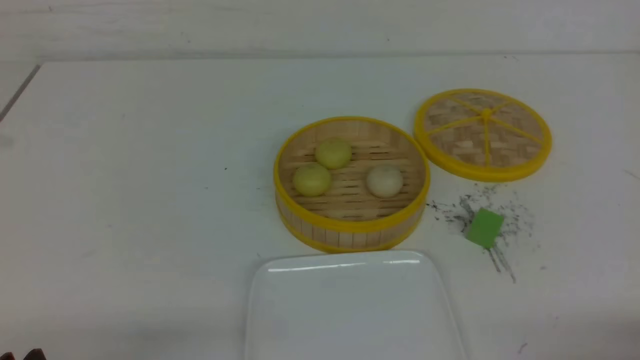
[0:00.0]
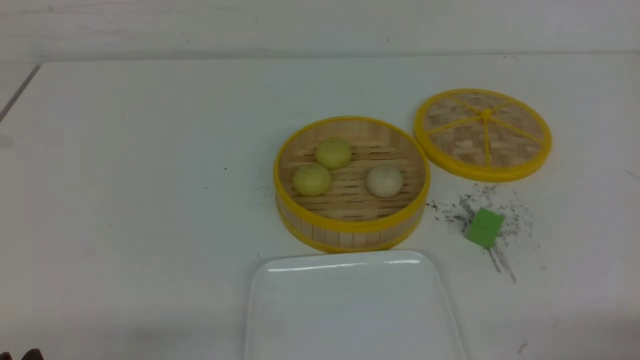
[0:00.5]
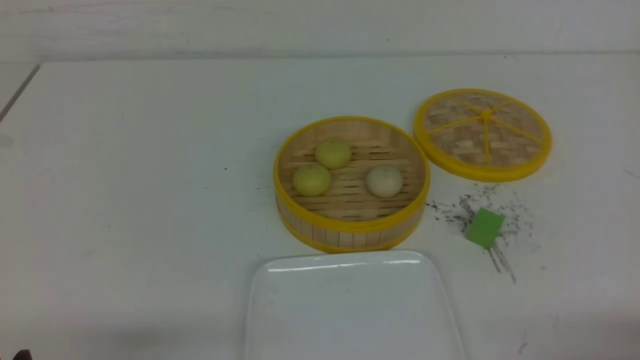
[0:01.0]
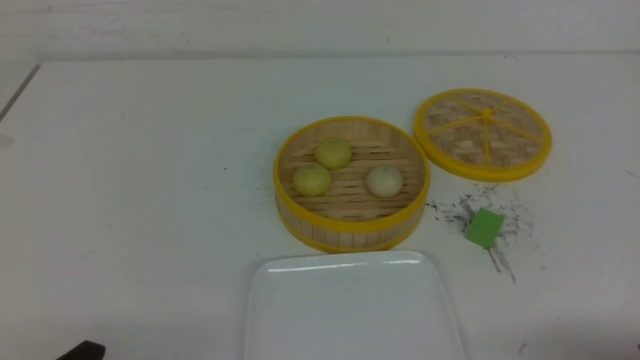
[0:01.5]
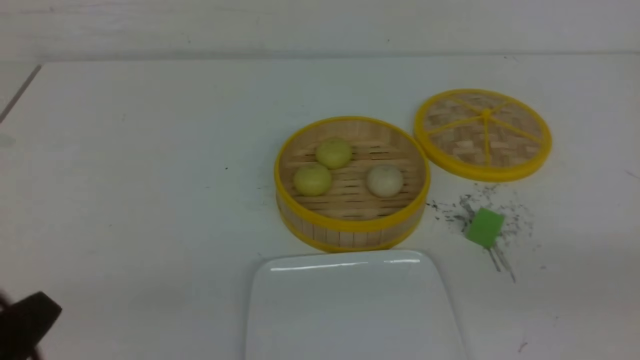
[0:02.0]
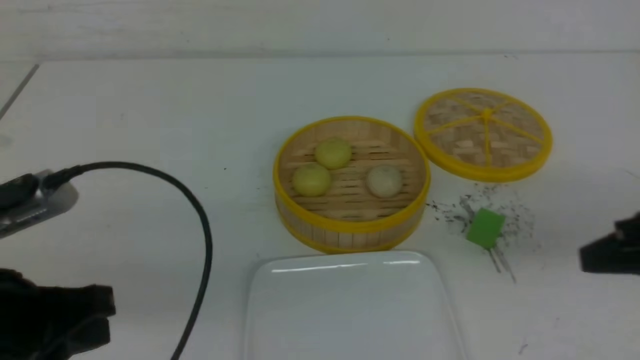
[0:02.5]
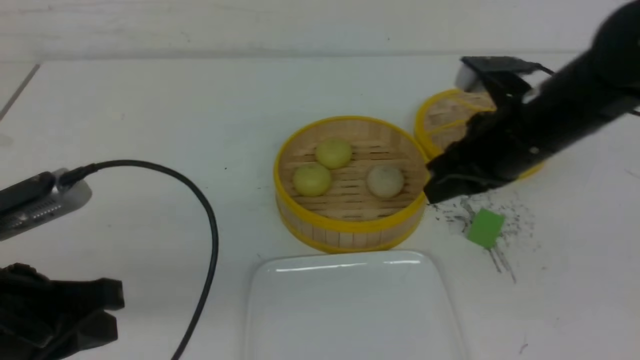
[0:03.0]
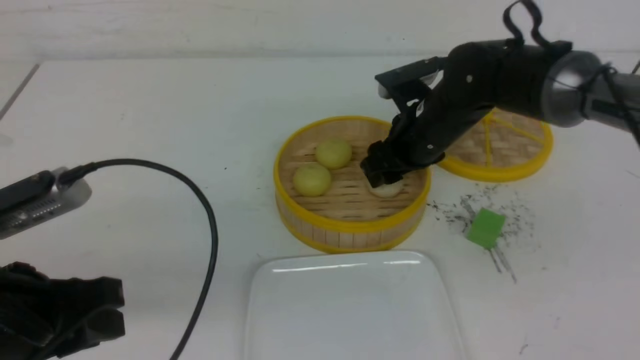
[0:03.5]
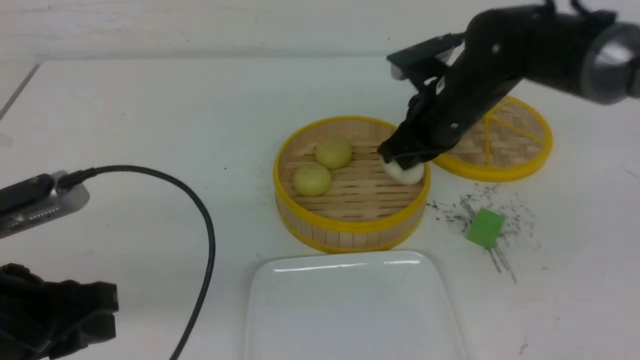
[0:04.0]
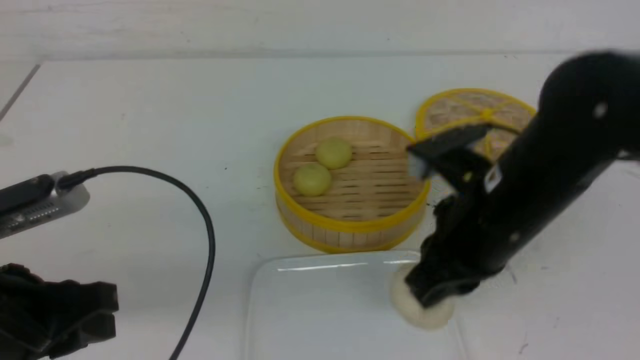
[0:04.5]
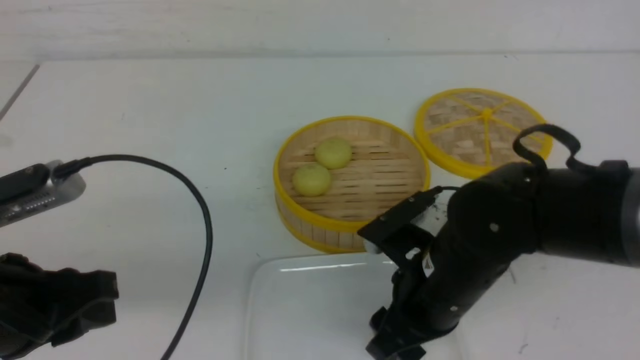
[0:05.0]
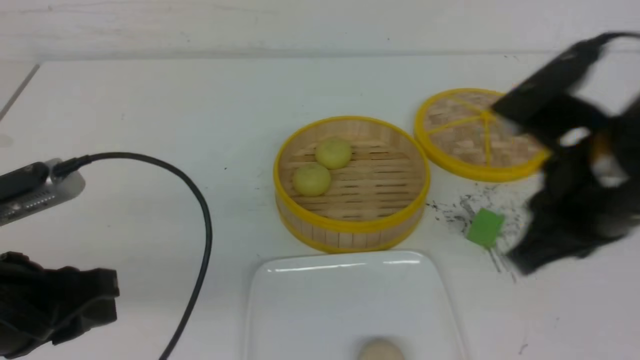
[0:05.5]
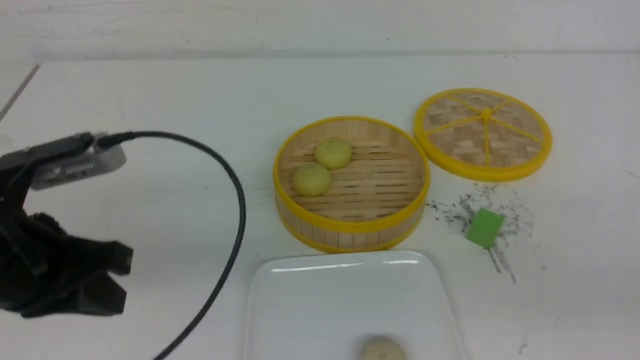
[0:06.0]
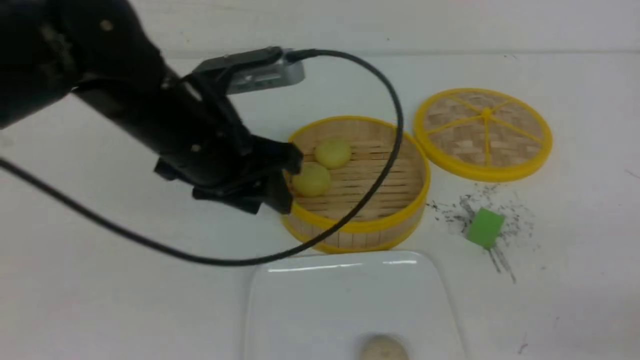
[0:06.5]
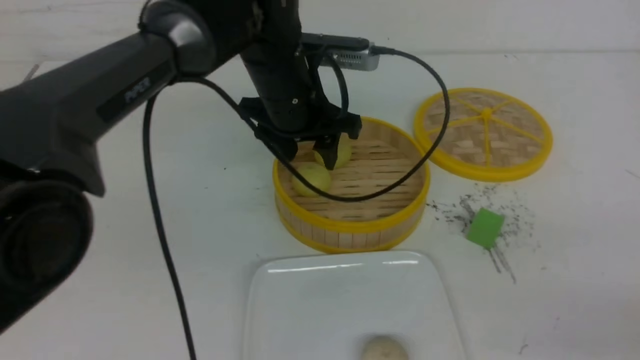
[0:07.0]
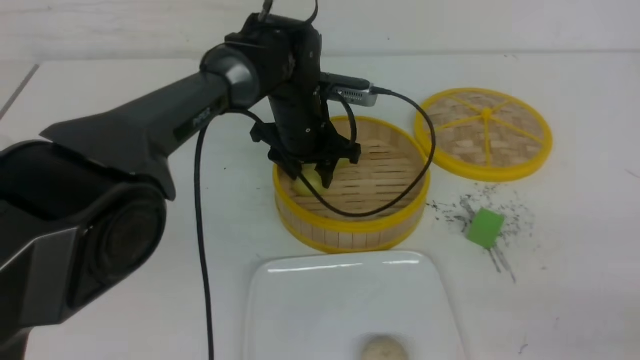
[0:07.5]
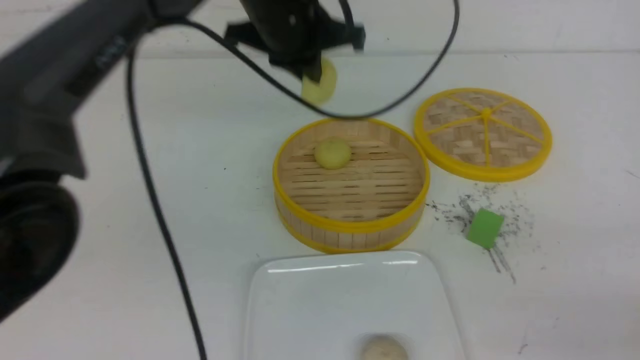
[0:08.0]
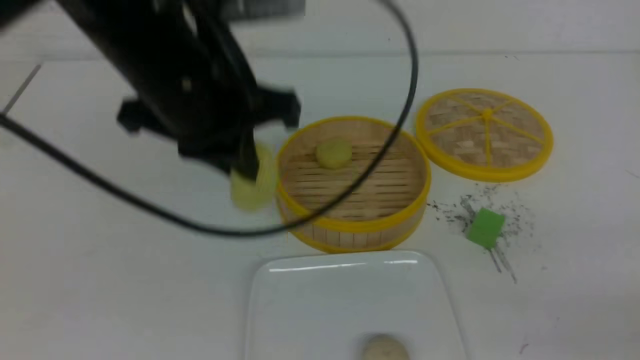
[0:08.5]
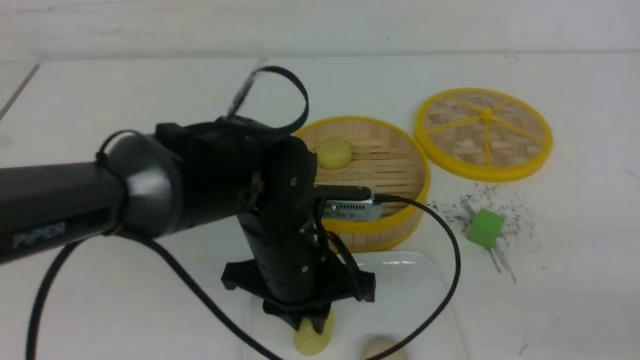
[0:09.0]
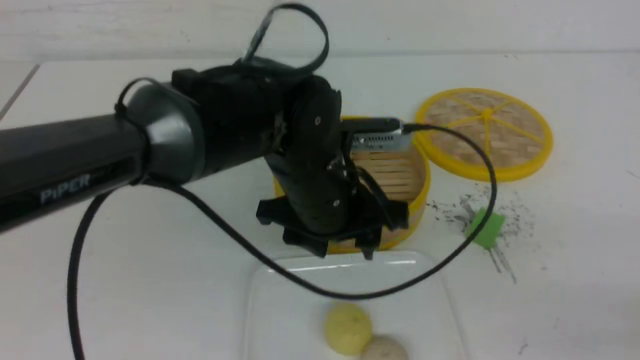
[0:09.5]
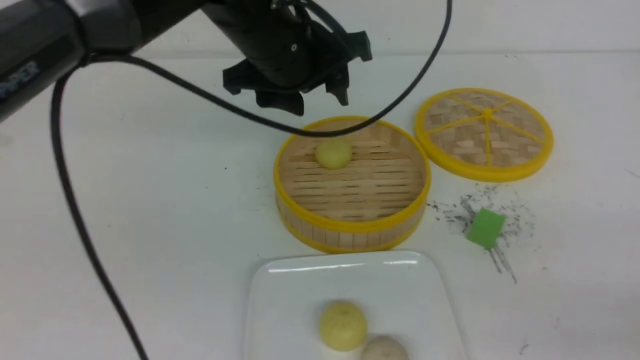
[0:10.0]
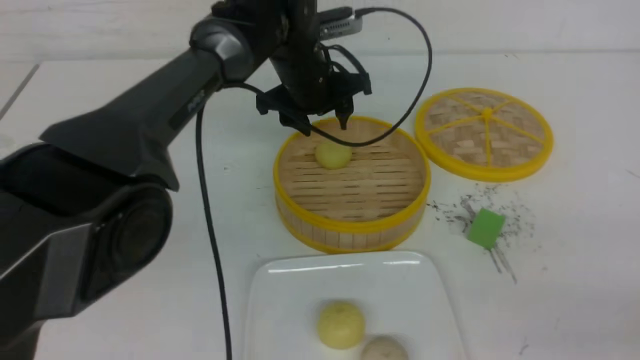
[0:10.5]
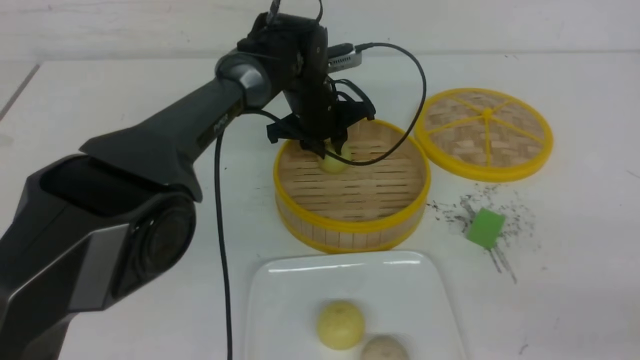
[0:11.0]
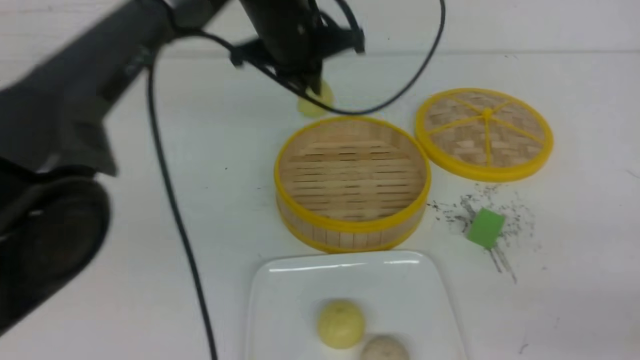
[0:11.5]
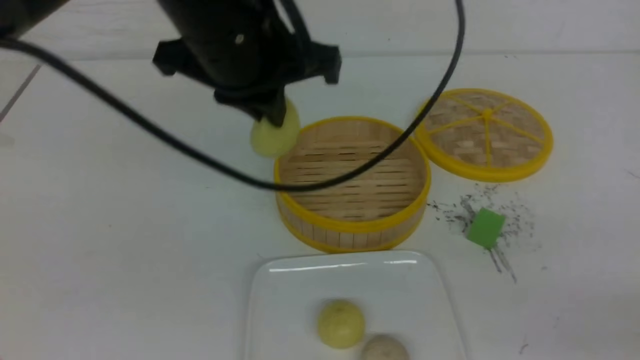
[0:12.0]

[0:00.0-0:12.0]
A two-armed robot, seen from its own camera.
Step, 0:00.0 to 0:03.5: use the right arm to grab the steamed stuffed bun that is closest to it.
Step, 0:04.0 to 0:05.0: use the right arm to put the steamed stuffed bun into the plate.
Step, 0:05.5 to 0:07.5: use the left arm to grab the steamed stuffed bun that is closest to it.
Step, 0:08.0 to 0:09.0: use the left arm to put the steamed stuffed bun into the plate.
Step, 0:09.5 to 0:11.0: use the left arm to grab the steamed stuffed bun that is closest to it.
0:00.0 to 0:02.0: The left gripper is displaced upward by roughly 10 cm.
0:02.0 to 0:04.0: The right gripper heads forward and to the left, covering about 35 cm, and opens and closes again, while the left gripper is displaced forward by roughly 10 cm.
0:04.0 to 0:06.0: The right gripper shifts approximately 30 cm backward and to the right, and opens, then closes again; the left gripper ends up about 5 cm from where it was, and closes.
0:06.0 to 0:08.0: The left gripper travels forward, to the right and upward by approximately 25 cm, and opens, then closes again.
0:08.0 to 0:10.0: The left gripper moves approximately 15 cm downward and comes back, and opens.
0:10.0 to 0:12.0: The left gripper is displaced backward by roughly 10 cm, and closes.

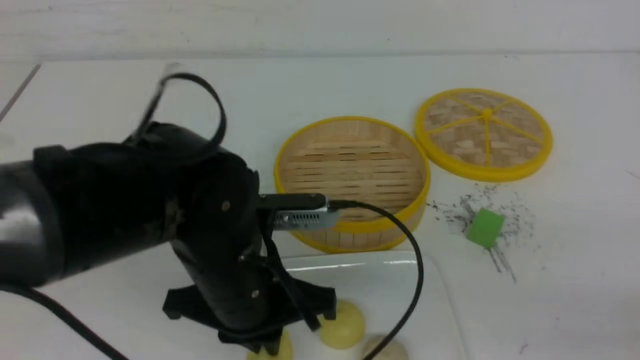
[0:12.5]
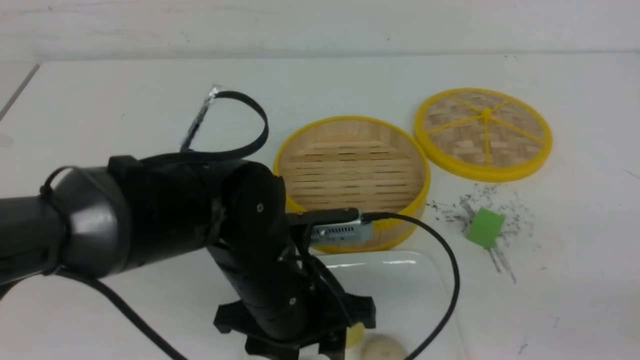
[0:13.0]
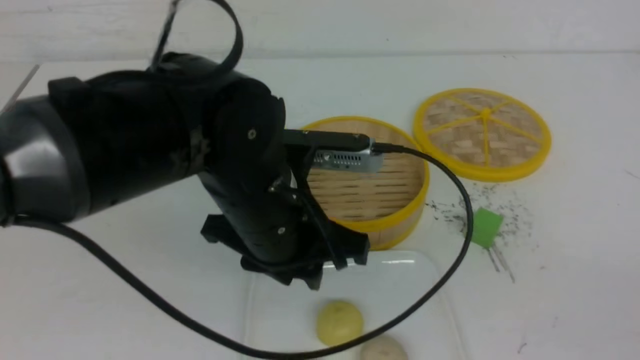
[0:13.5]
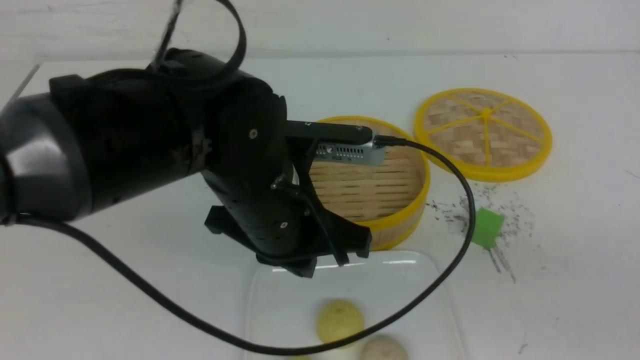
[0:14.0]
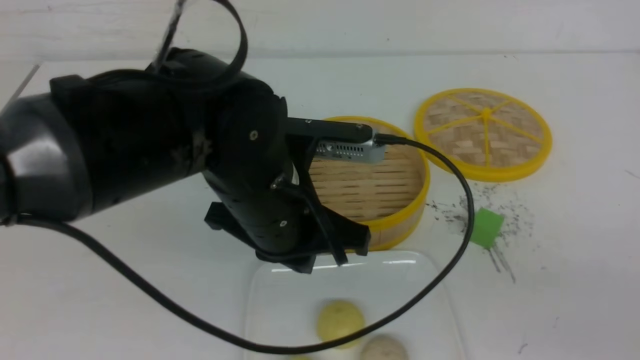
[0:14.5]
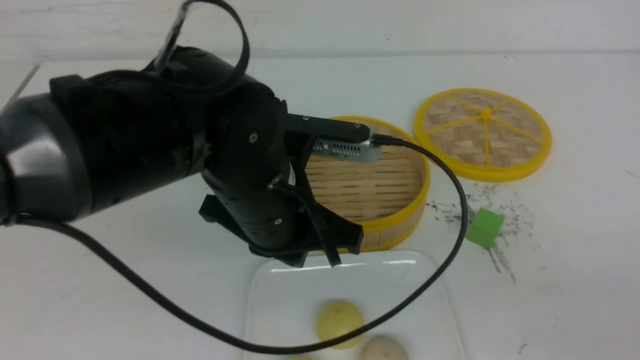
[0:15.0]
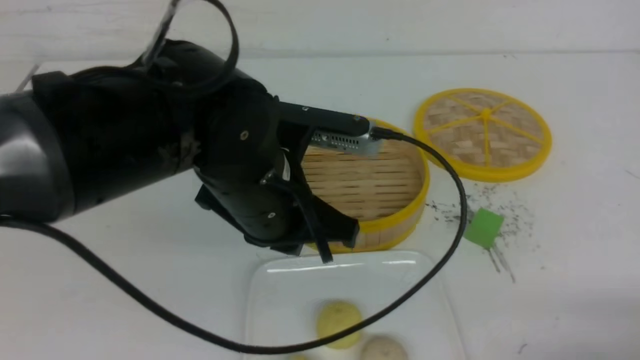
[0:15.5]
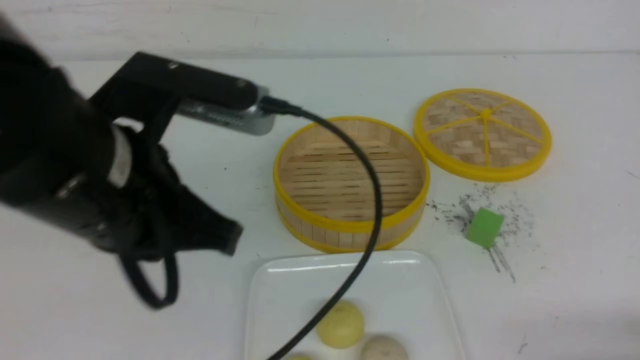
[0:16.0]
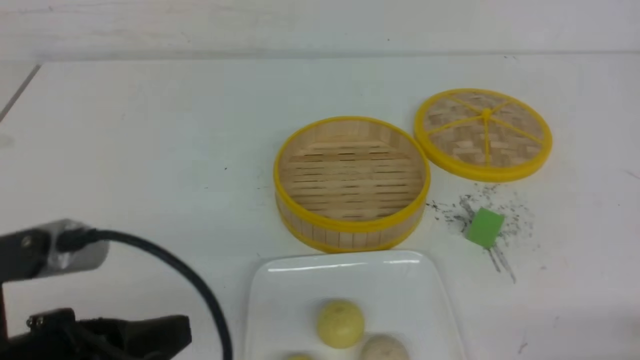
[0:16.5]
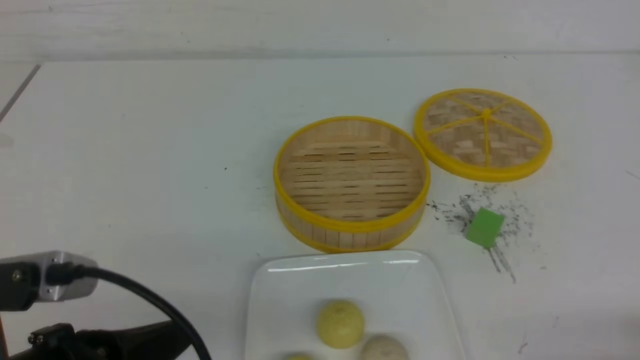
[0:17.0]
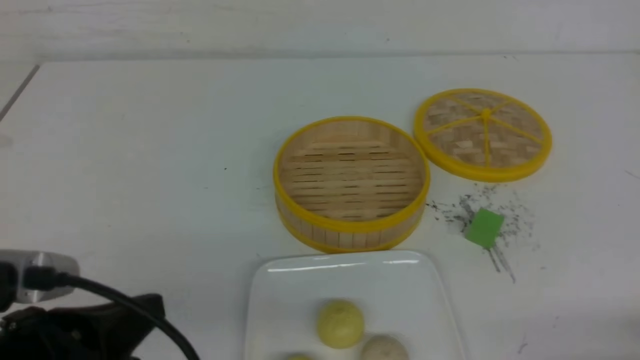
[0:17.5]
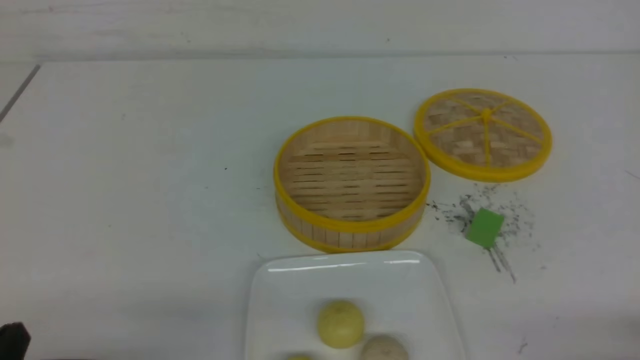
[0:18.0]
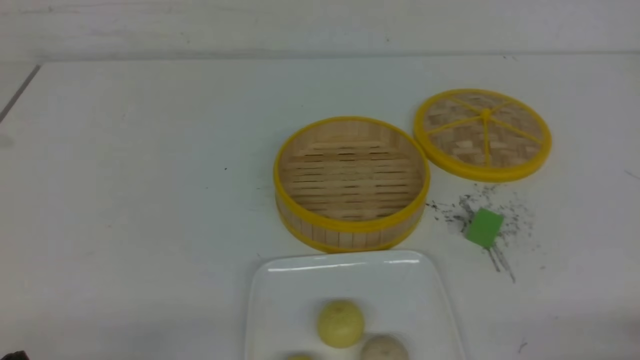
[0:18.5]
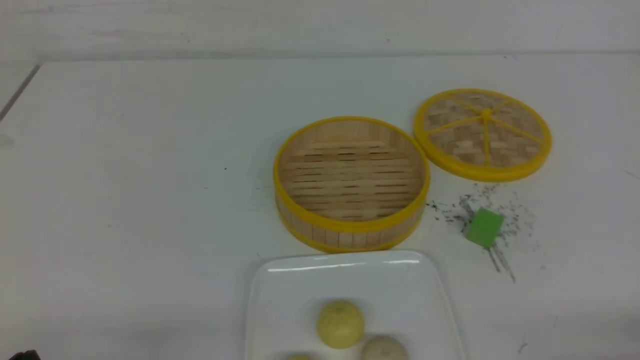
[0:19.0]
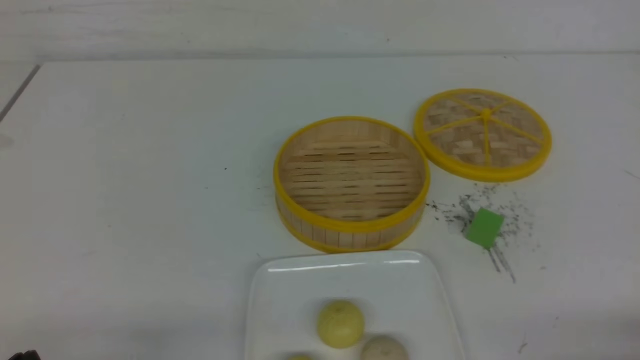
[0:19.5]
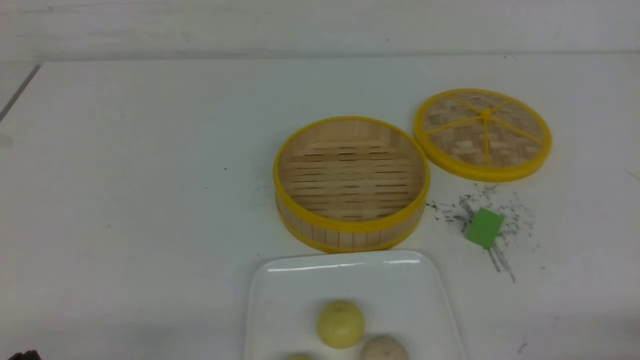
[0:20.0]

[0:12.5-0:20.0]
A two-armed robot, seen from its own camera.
0:12.5 to 0:14.5: The left gripper ends up some 5 cm from where it was, and opens and closes again.
0:14.5 to 0:16.5: The left gripper shifts some 20 cm backward and to the left. Meanwhile the right gripper shifts approximately 15 cm downward.
0:16.5 to 0:18.0: The left gripper moves to the left and downward, about 10 cm.
